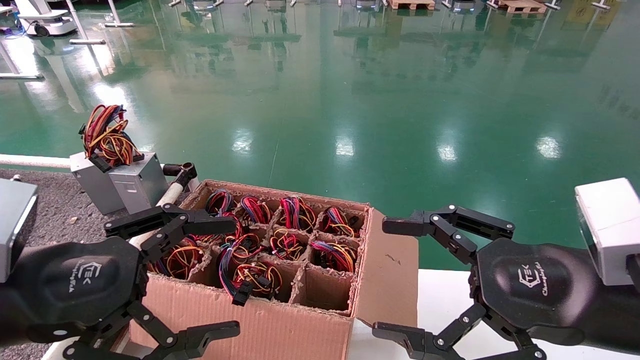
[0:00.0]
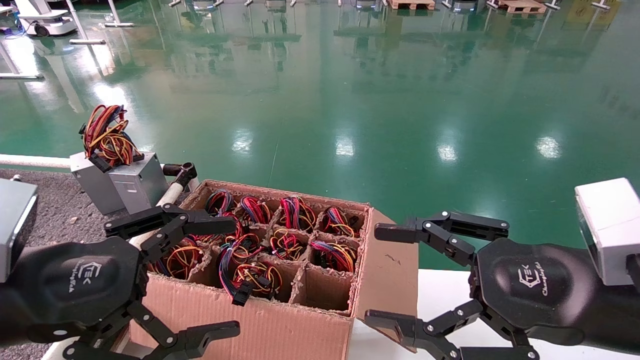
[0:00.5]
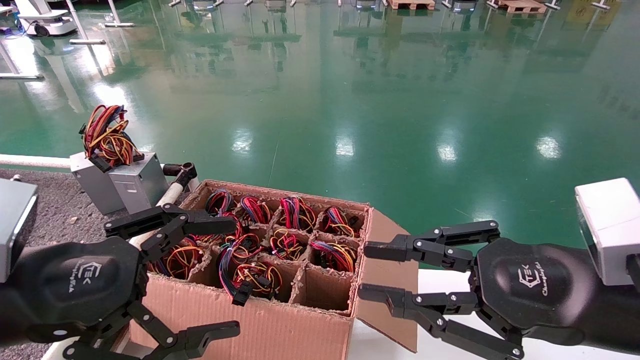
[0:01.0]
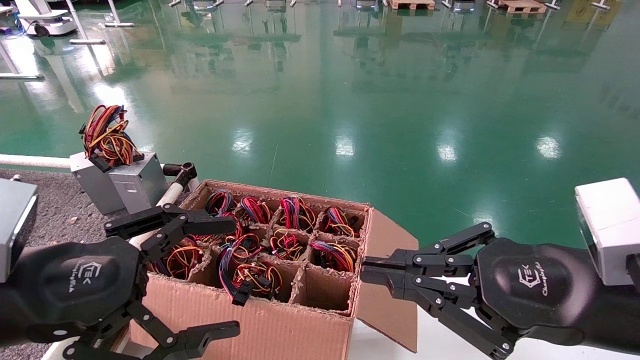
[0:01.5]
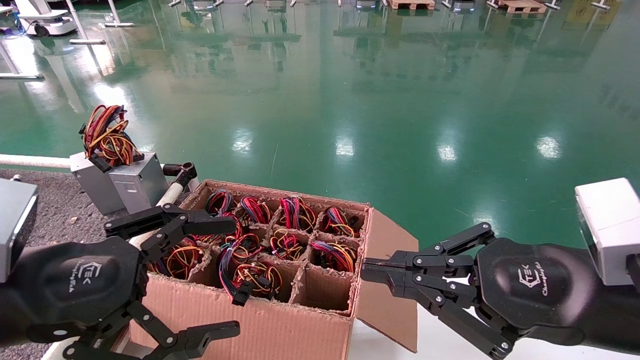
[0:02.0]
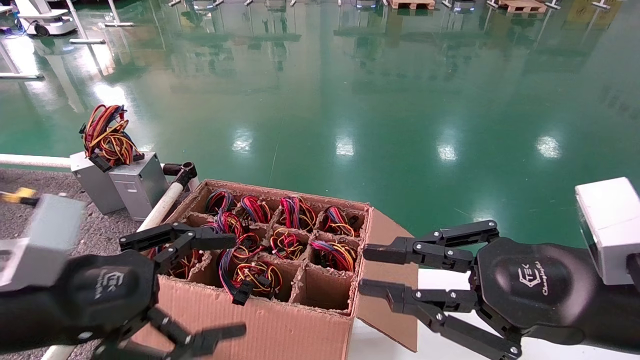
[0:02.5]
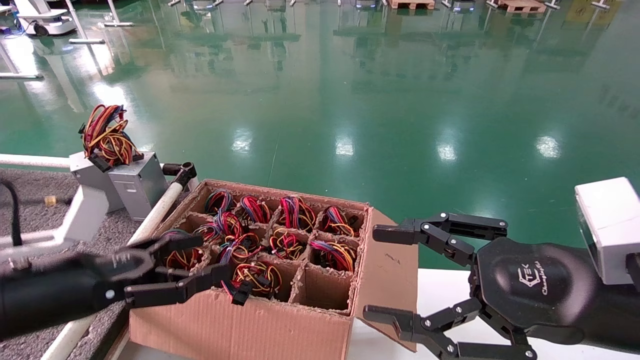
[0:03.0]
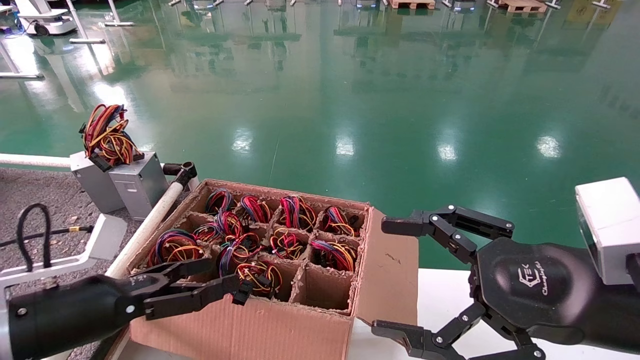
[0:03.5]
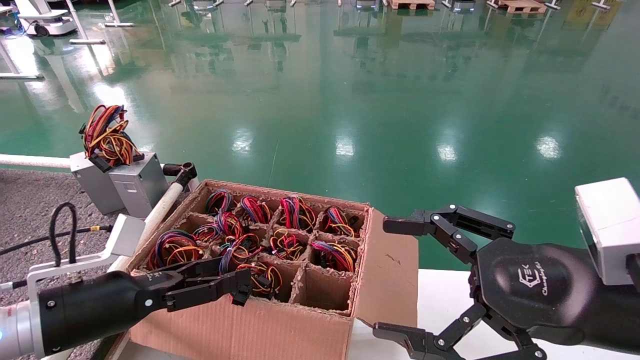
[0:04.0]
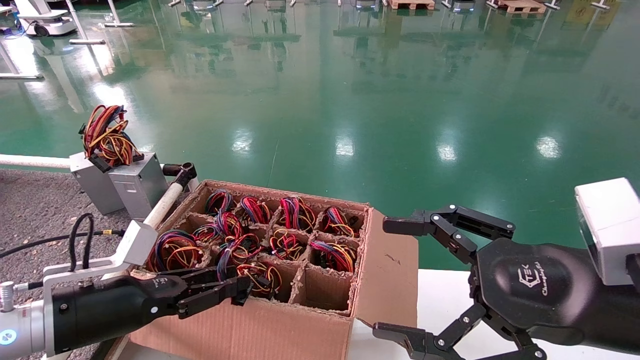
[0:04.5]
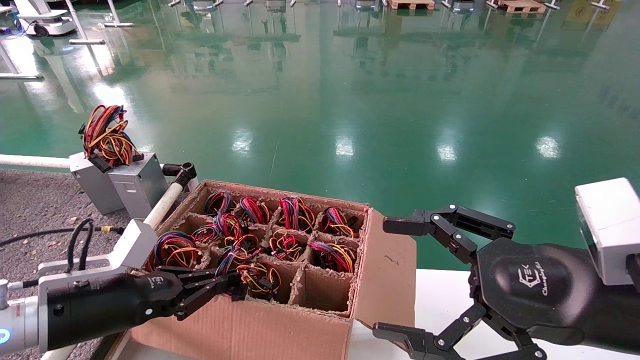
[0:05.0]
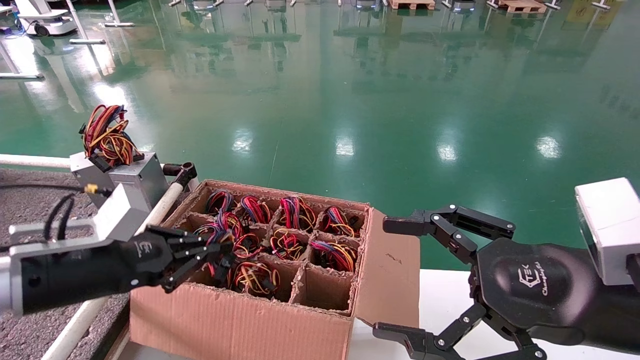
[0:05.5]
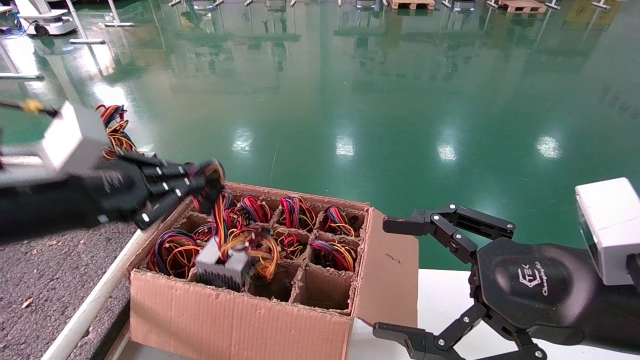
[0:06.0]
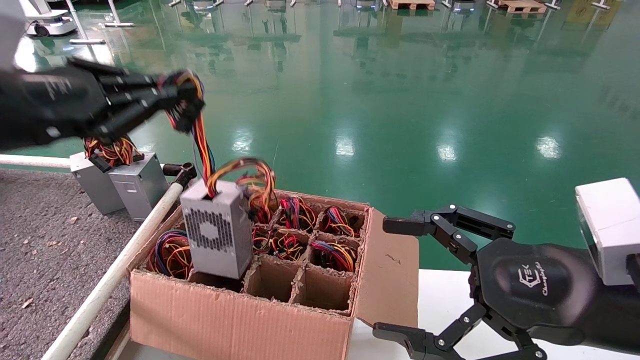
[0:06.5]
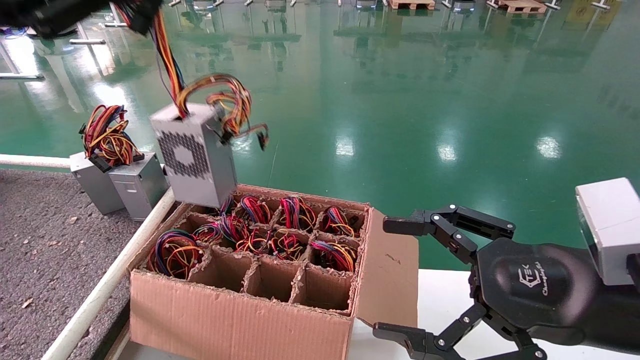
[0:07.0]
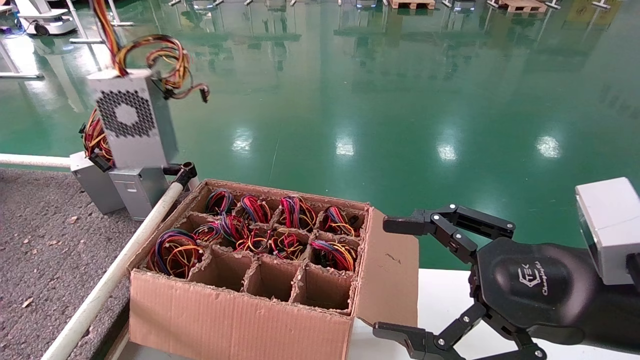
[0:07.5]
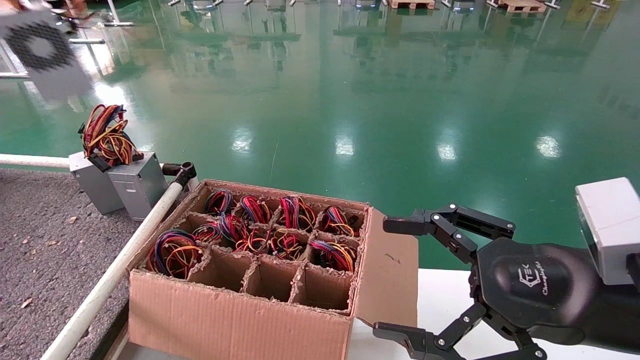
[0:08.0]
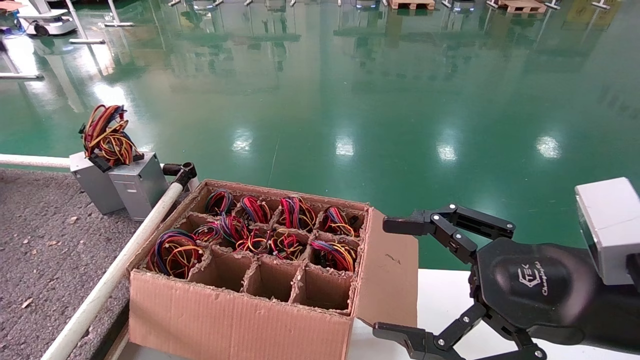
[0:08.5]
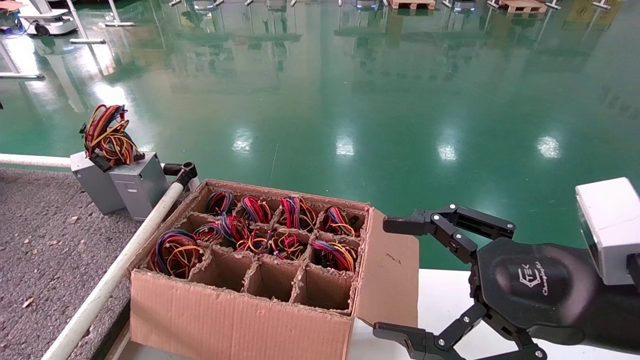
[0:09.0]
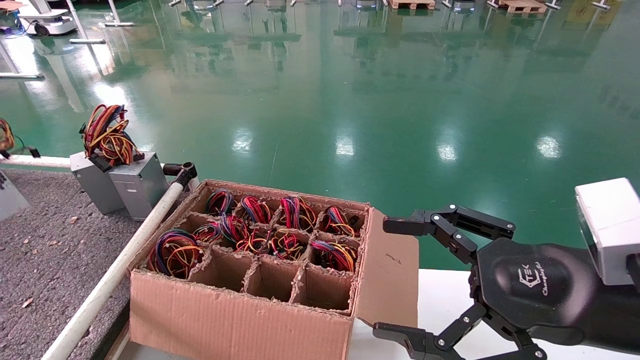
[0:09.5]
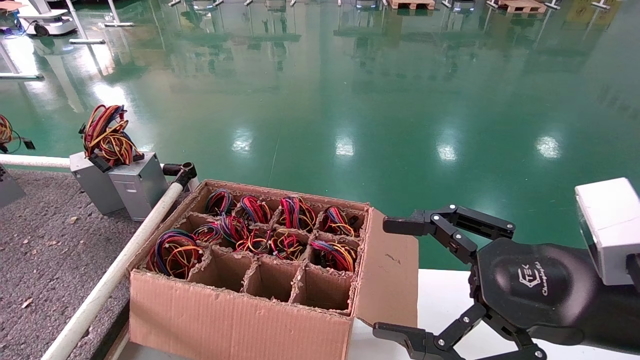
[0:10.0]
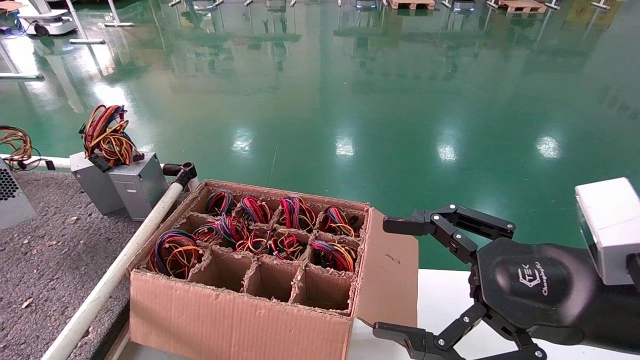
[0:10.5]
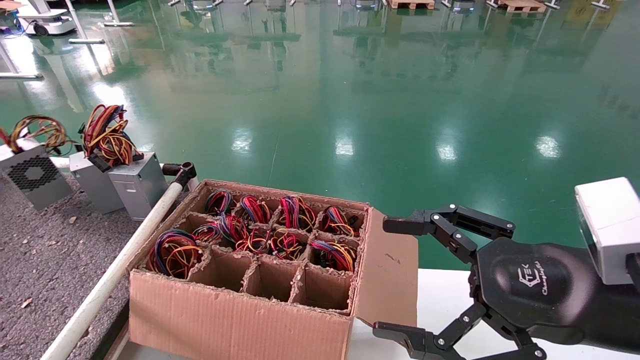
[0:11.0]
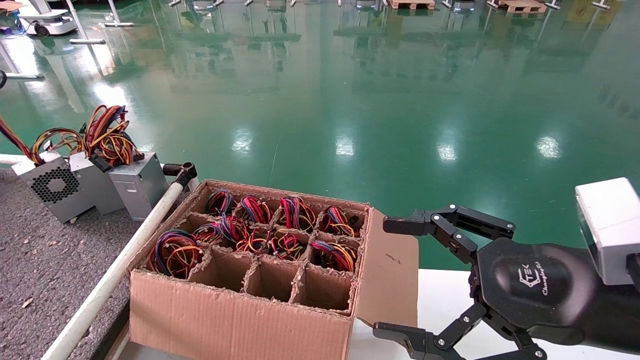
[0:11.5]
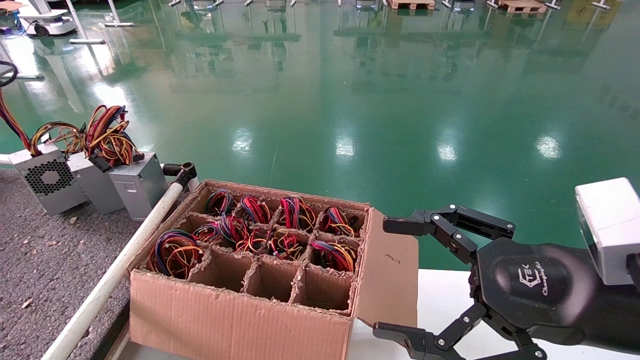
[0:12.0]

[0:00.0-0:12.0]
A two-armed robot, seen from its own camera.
Step, 0:03.0 to 0:05.5: Grab and lift the power supply from the large box.
0:00.0 to 0:02.0: The right gripper closes up.
0:02.0 to 0:04.0: The left gripper goes about 15 cm downward and forward; the right gripper opens up.
0:04.0 to 0:06.0: The left gripper travels upward by about 15 cm, and closes its fingers.
0:06.0 to 0:08.0: The left gripper goes approximately 30 cm upward and to the left.
0:08.0 to 0:10.0: The left gripper travels downward and to the left by roughly 20 cm.
0:10.0 to 0:12.0: The left gripper shifts some 15 cm forward and to the right.

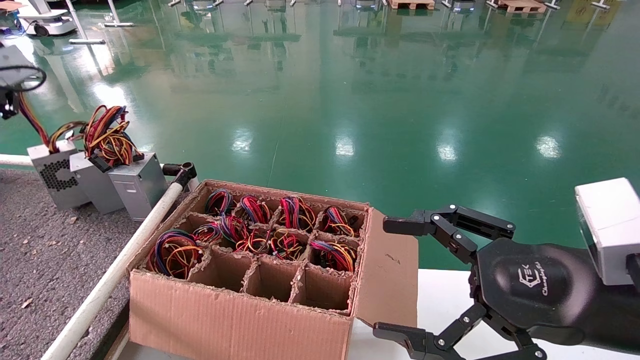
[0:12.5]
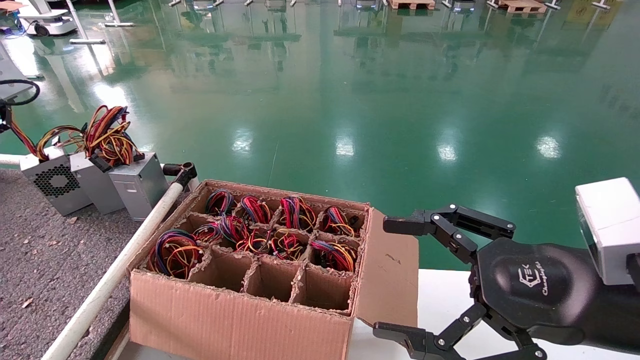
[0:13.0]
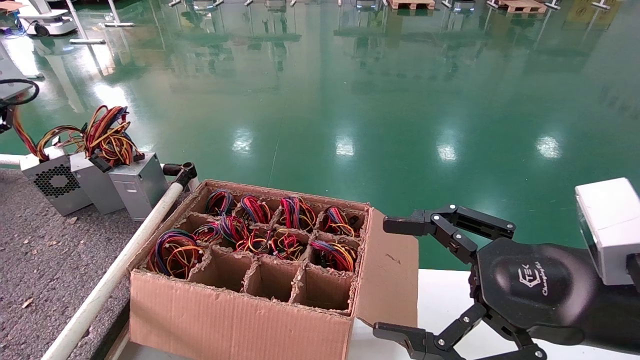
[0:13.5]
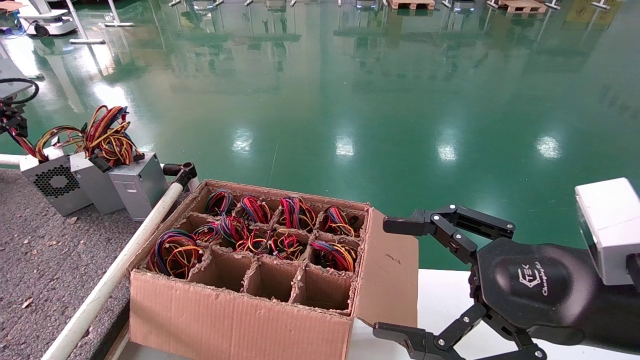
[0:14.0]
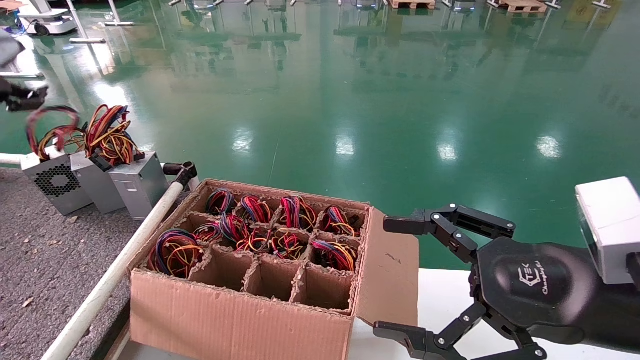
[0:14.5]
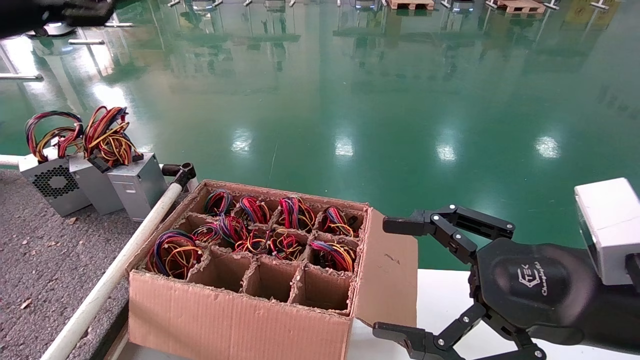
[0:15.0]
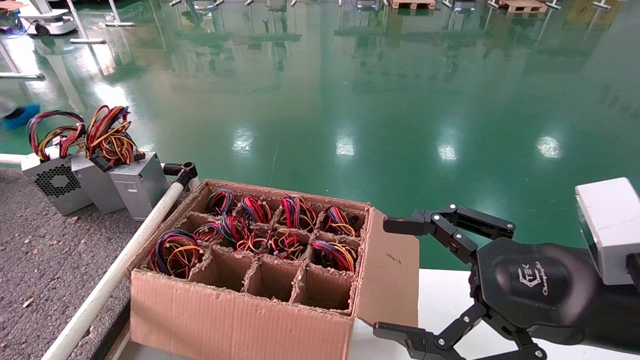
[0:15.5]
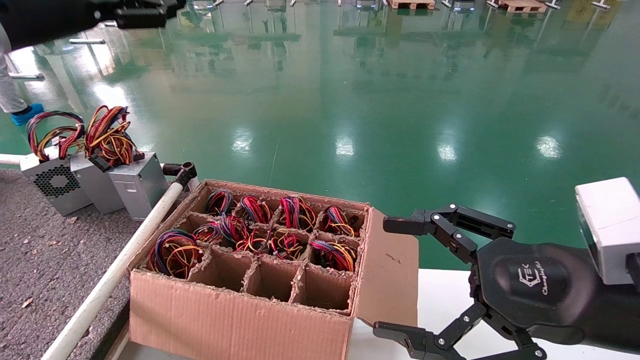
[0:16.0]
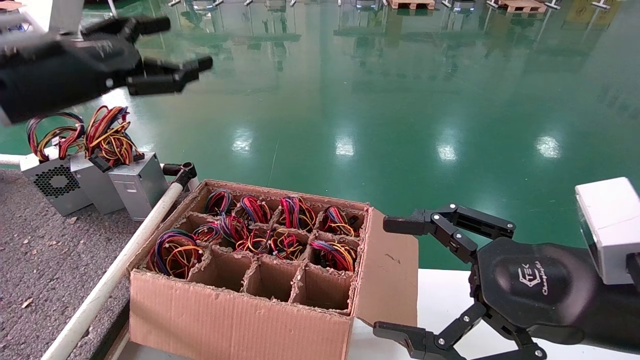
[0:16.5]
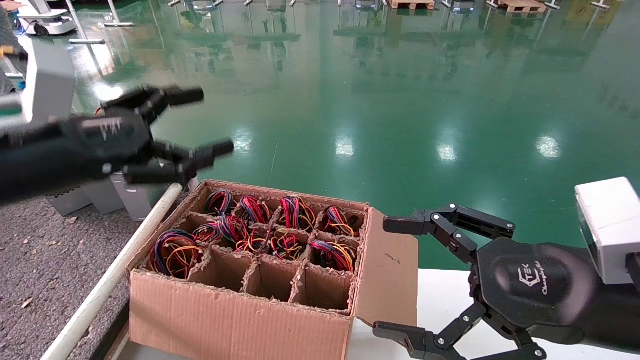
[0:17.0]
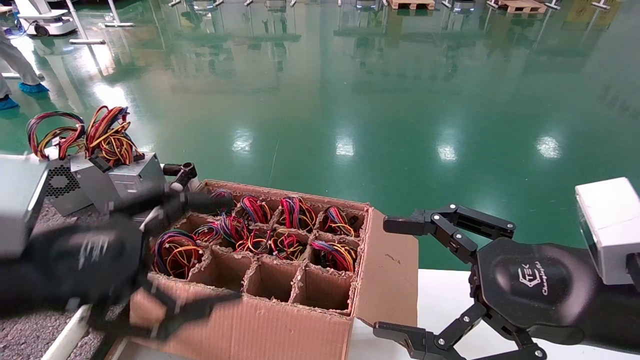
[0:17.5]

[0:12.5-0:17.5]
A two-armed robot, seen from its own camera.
0:12.5 to 0:15.0: The left gripper moves upward and to the right, approximately 15 cm, and opens.
0:15.0 to 0:17.5: The left gripper moves downward, backward and to the right, roughly 30 cm.
